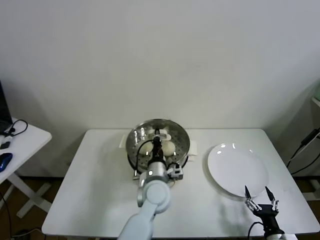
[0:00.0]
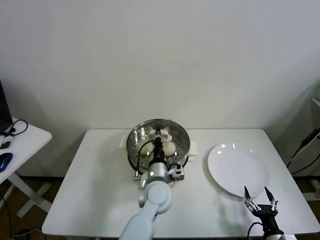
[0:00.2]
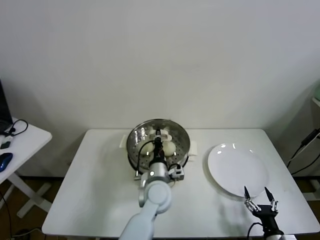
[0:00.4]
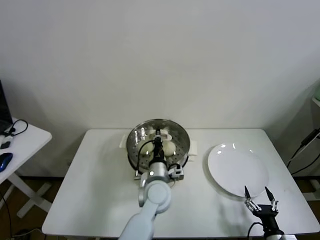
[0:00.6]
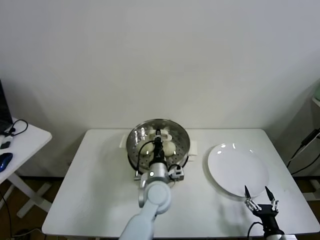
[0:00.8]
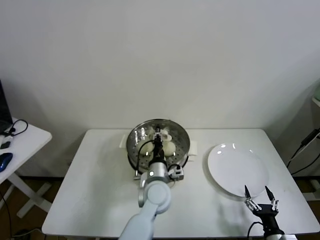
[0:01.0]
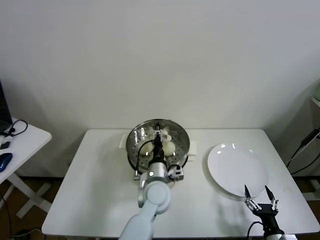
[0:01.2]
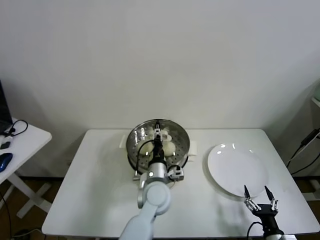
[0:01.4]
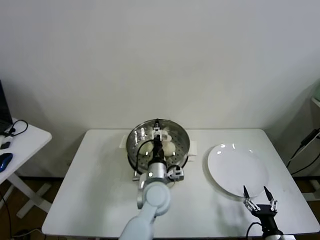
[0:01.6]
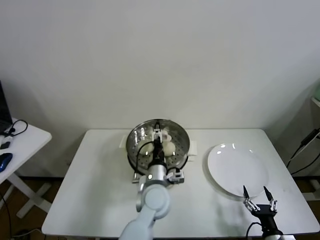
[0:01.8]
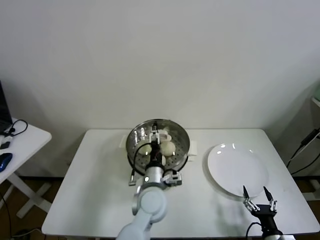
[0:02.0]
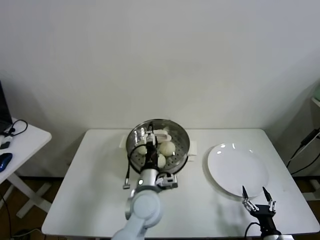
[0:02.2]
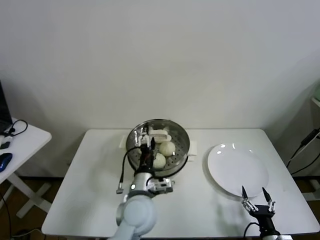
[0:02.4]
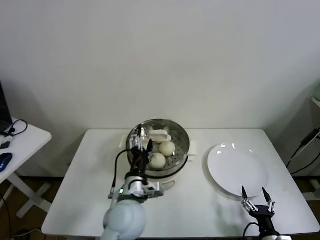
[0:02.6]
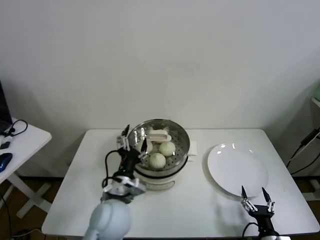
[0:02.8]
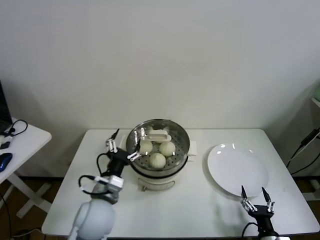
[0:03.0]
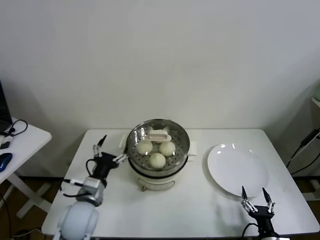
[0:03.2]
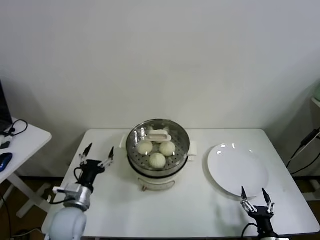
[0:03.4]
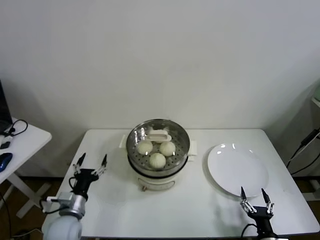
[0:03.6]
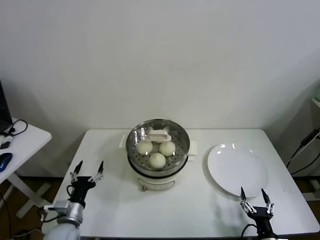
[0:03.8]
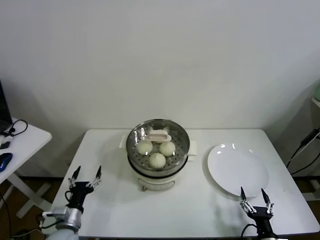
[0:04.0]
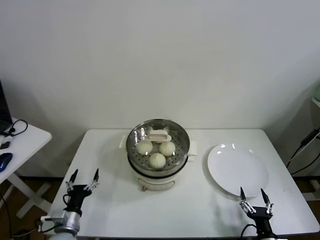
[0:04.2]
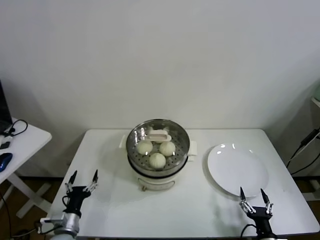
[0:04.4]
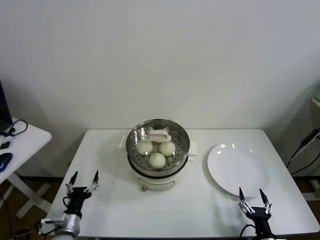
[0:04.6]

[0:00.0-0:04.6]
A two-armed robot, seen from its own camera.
Task of the whole recording: take steamed baozi put them in steamer.
Step, 0:00.0 to 0:02.6: Place the pot lid on the steamer with left gripper.
0:00.0 to 0:01.6: The left gripper opens its fingers.
0:01.6 to 0:03.0: The left gripper is displaced to the left and backward by approximately 15 cm.
0:03.0 to 0:04.6: The left gripper travels downward and to the left by approximately 25 cm.
